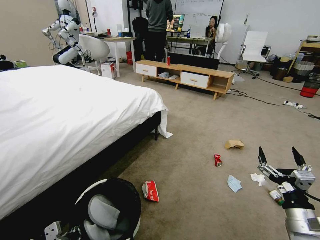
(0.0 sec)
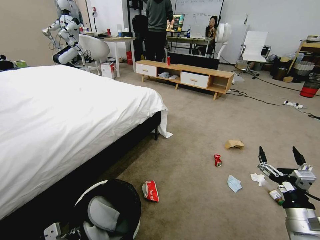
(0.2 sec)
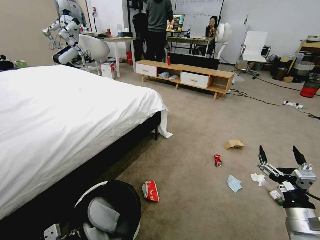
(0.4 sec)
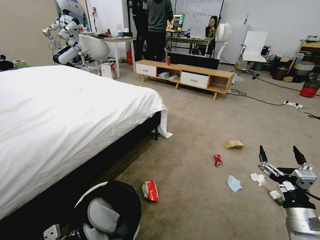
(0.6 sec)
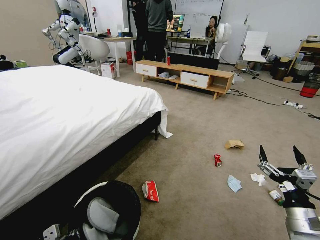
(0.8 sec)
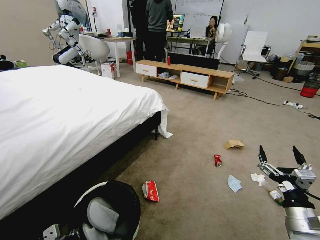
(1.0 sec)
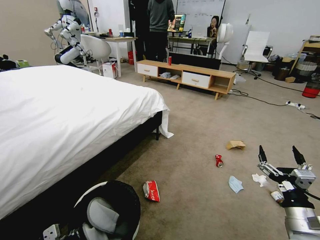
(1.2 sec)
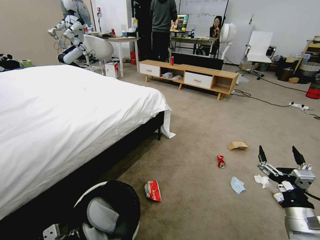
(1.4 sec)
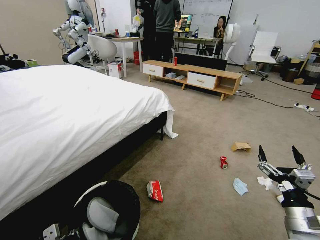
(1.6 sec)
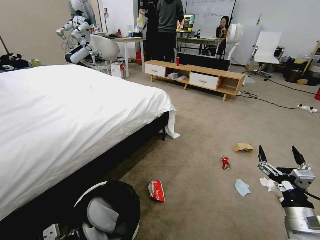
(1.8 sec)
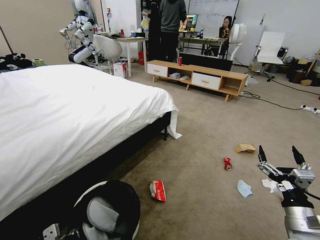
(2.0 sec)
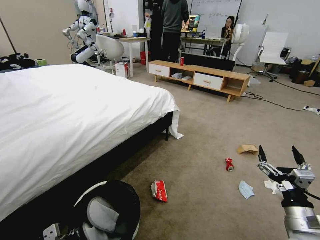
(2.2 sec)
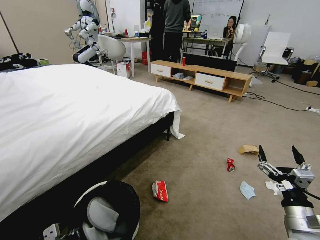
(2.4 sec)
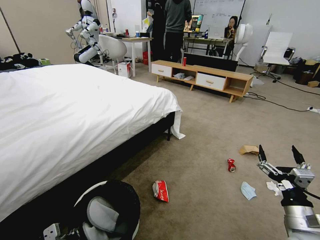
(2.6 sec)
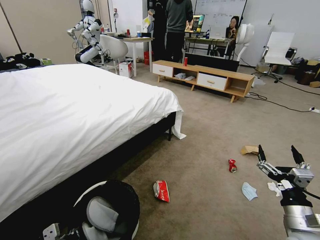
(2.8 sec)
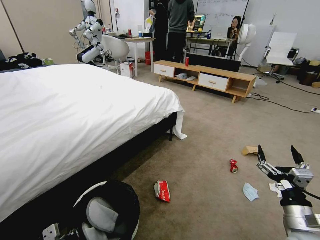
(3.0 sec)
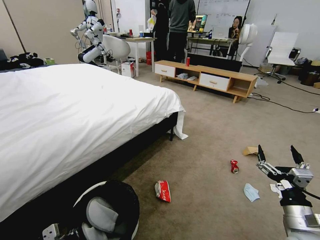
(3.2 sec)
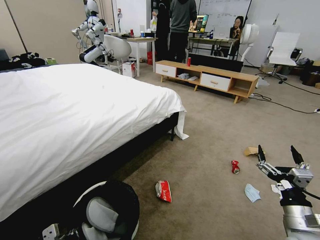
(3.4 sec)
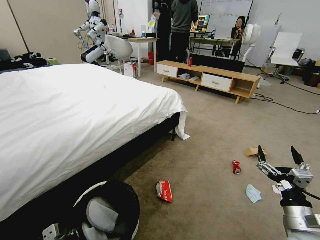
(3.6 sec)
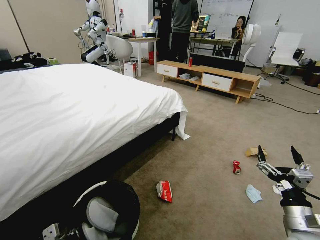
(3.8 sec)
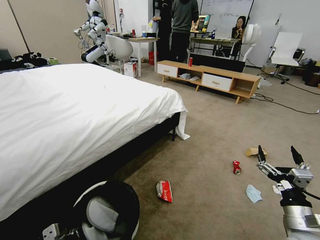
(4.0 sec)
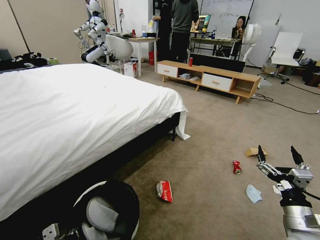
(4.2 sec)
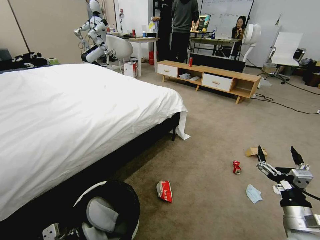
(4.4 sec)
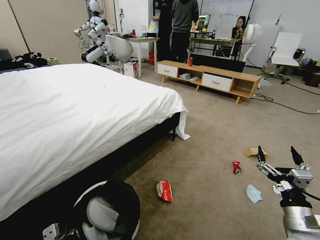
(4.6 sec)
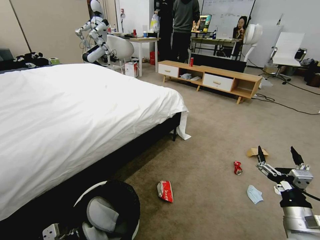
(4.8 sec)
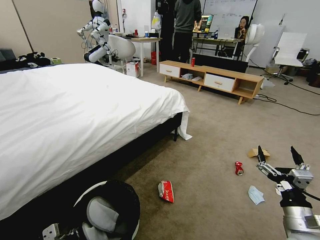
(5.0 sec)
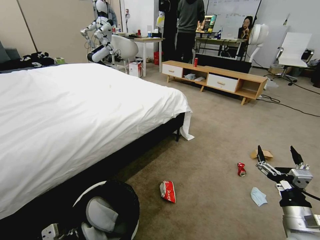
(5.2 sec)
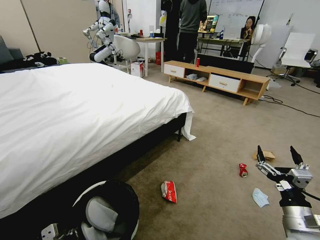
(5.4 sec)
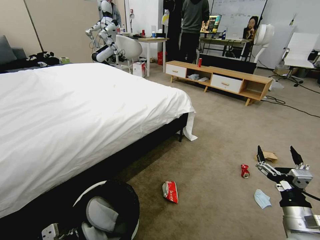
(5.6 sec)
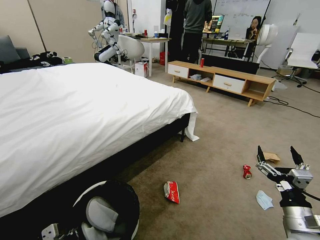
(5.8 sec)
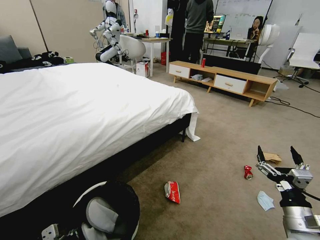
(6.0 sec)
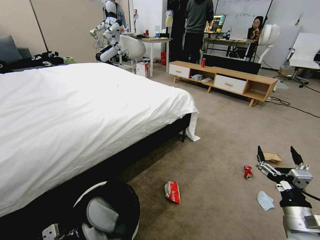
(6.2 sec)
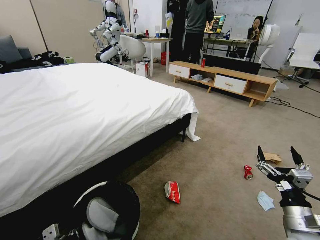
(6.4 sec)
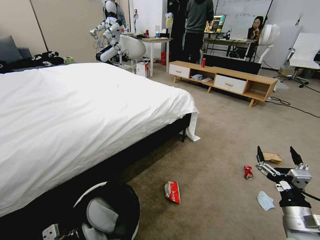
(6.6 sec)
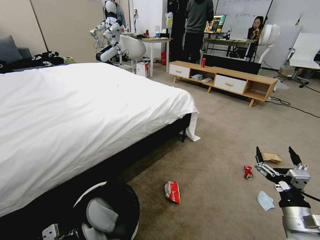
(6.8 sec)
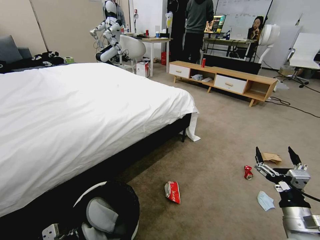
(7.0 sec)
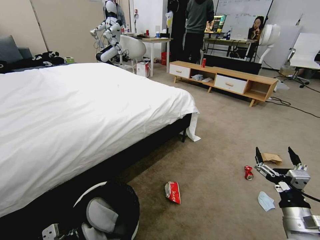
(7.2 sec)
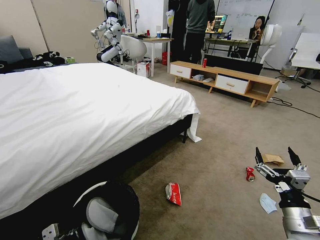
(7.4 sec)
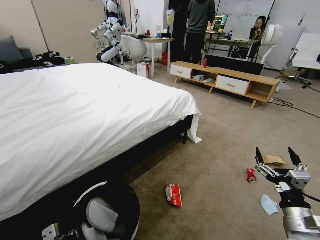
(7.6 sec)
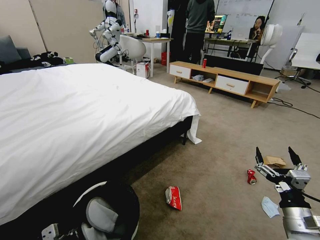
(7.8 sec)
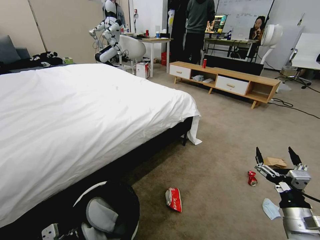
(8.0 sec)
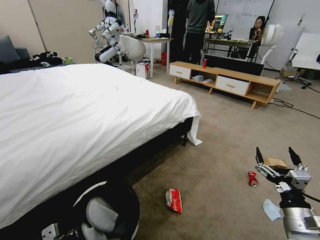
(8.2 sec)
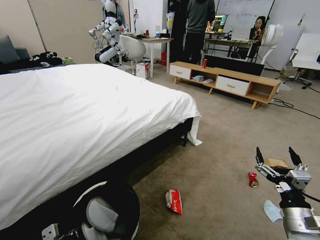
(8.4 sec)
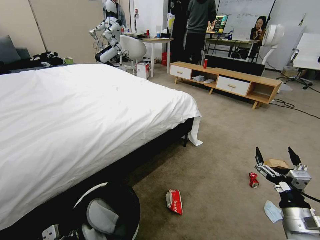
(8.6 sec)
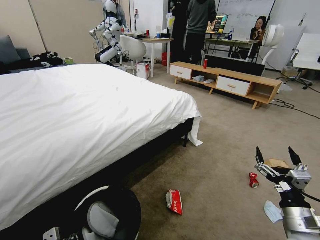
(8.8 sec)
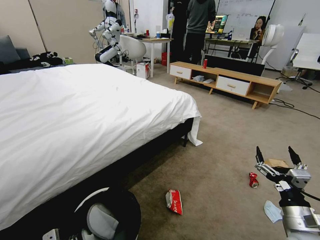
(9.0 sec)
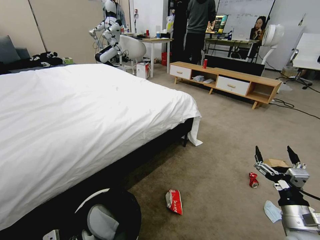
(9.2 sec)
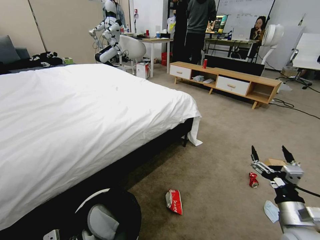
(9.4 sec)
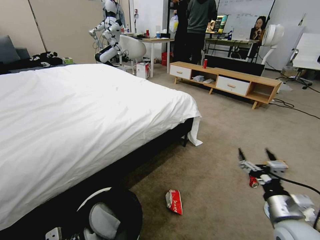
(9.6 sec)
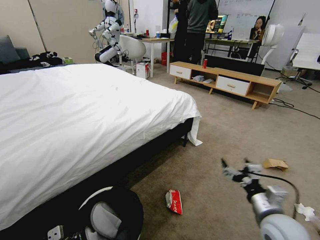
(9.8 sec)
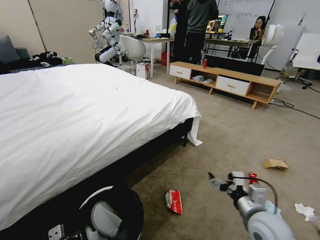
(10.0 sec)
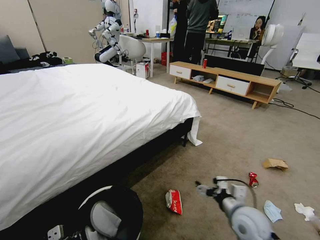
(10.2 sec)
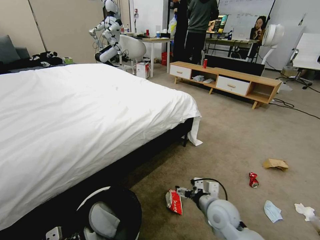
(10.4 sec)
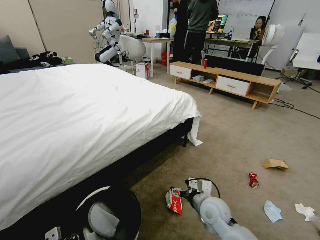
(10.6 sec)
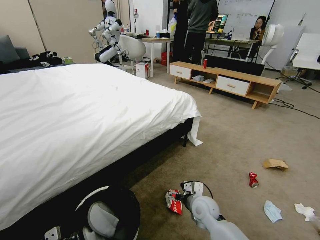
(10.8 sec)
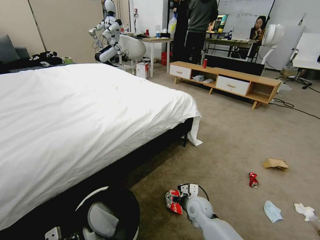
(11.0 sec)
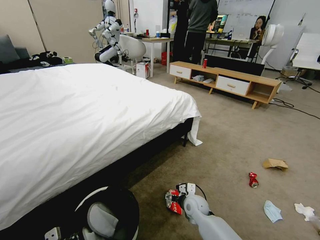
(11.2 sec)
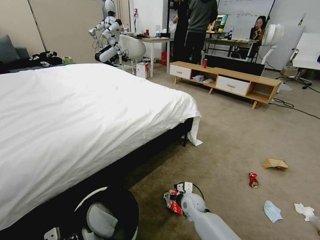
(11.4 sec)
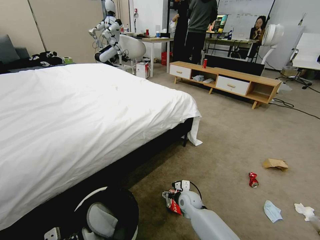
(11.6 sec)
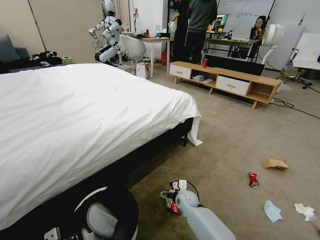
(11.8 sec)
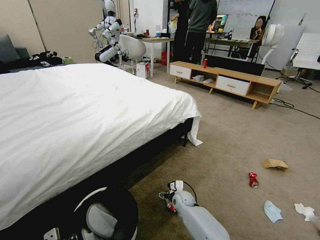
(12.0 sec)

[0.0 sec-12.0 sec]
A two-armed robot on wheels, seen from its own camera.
Task of the whole recording: Pick up the trash bin, then pick up the garbage from the floor and place it into the trash bin.
3.0 sec to 4.4 sec: Both grippers stay about where they are.
6.0 sec to 9.0 sec: Both grippers stay put.
9.0 sec to 10.4 sec: The right gripper goes about 20 cm to the left and forward.
10.4 sec to 12.0 sec: The right gripper heads downward, forward and to the left, covering about 25 cm.

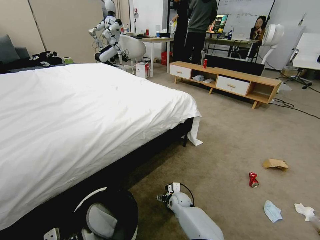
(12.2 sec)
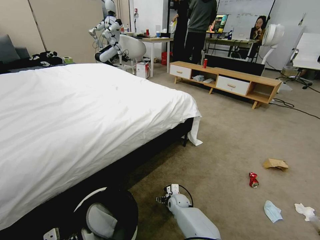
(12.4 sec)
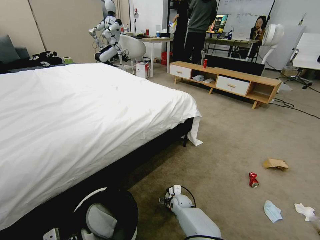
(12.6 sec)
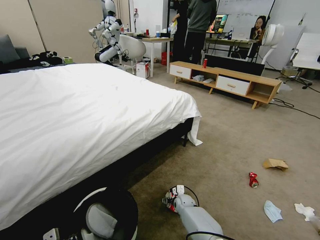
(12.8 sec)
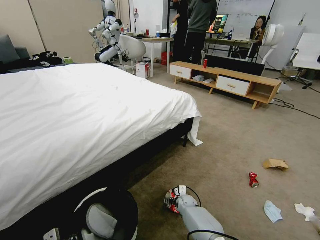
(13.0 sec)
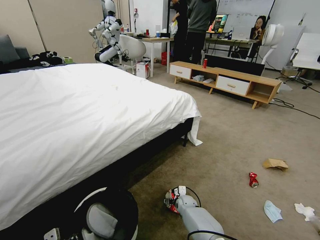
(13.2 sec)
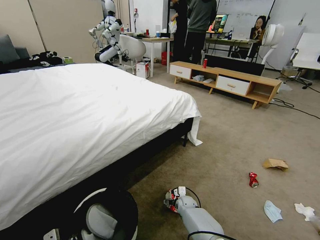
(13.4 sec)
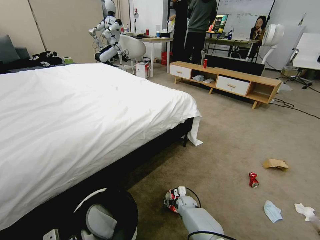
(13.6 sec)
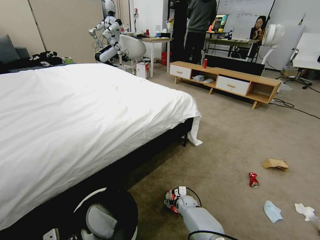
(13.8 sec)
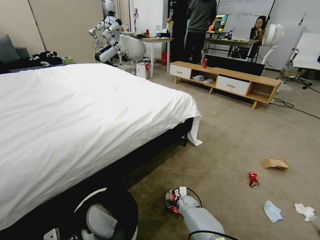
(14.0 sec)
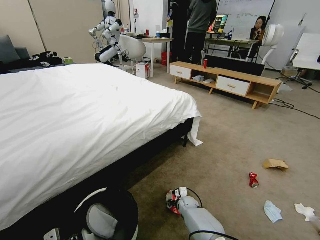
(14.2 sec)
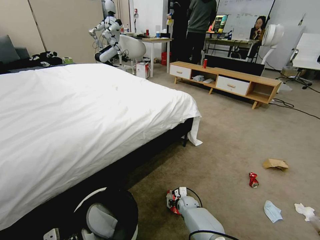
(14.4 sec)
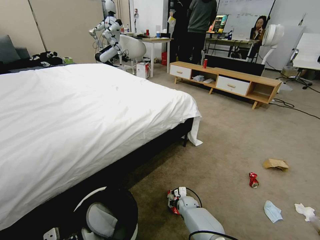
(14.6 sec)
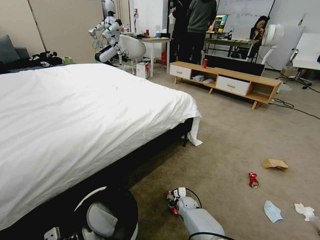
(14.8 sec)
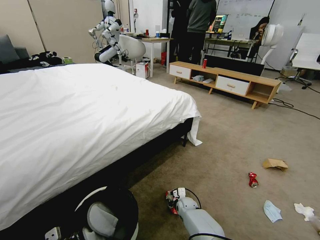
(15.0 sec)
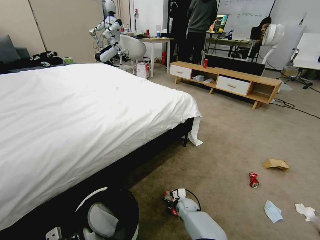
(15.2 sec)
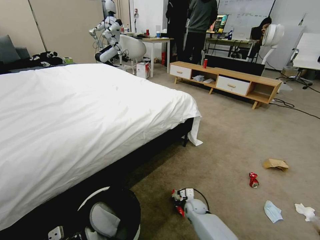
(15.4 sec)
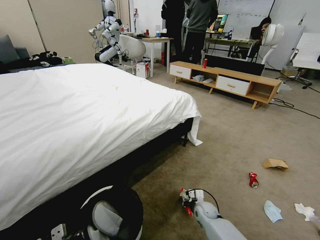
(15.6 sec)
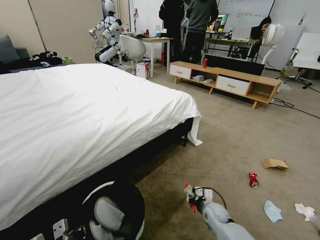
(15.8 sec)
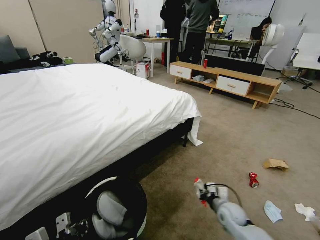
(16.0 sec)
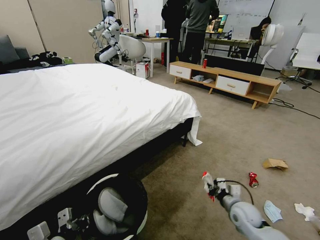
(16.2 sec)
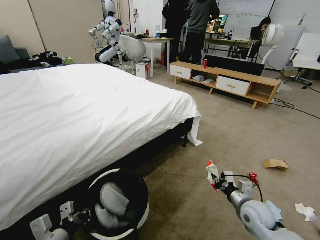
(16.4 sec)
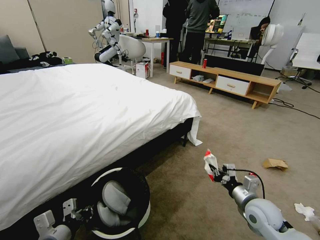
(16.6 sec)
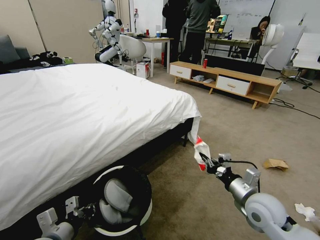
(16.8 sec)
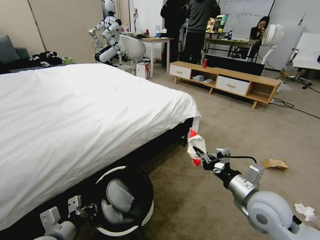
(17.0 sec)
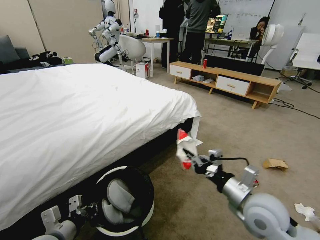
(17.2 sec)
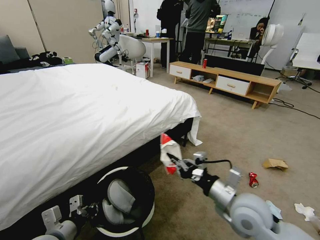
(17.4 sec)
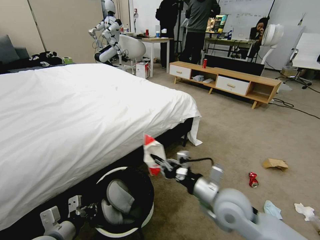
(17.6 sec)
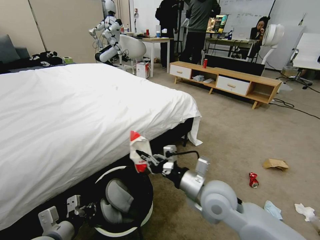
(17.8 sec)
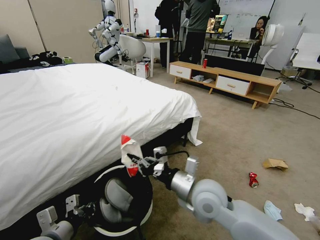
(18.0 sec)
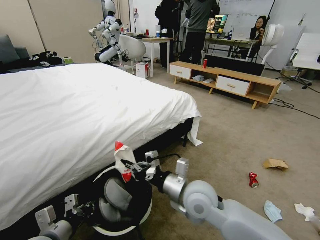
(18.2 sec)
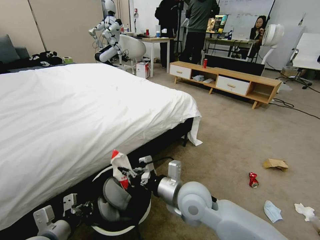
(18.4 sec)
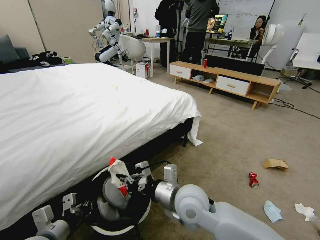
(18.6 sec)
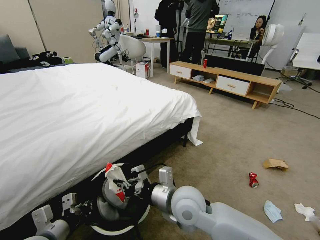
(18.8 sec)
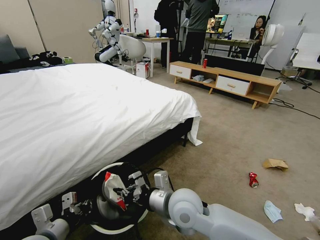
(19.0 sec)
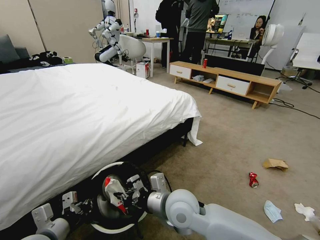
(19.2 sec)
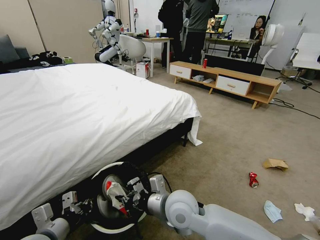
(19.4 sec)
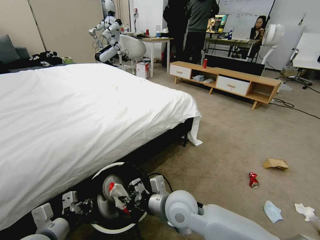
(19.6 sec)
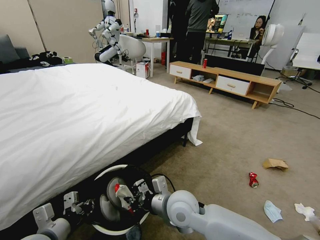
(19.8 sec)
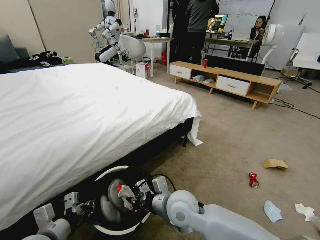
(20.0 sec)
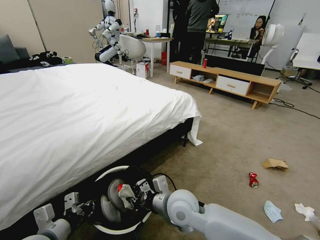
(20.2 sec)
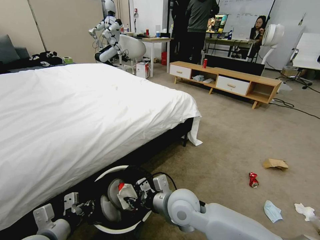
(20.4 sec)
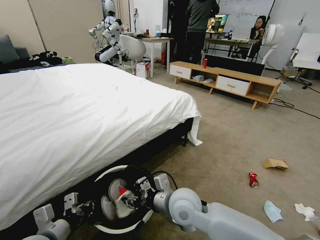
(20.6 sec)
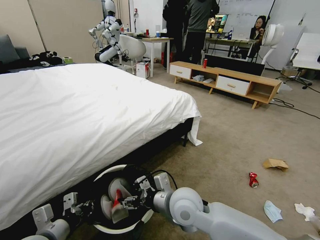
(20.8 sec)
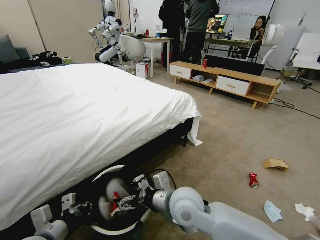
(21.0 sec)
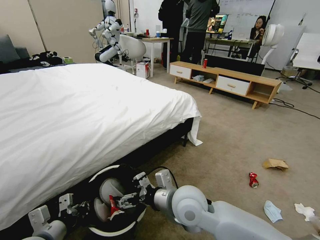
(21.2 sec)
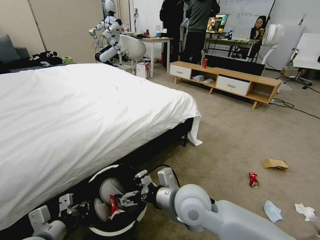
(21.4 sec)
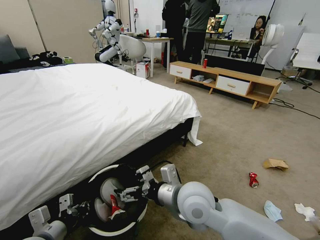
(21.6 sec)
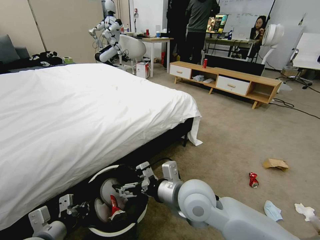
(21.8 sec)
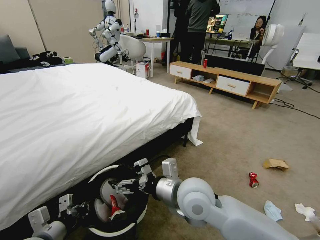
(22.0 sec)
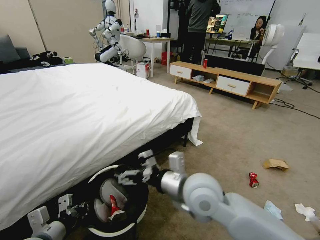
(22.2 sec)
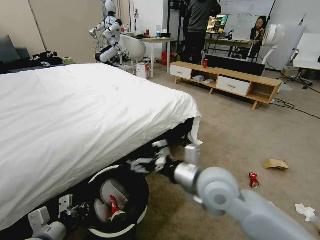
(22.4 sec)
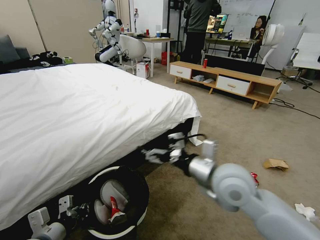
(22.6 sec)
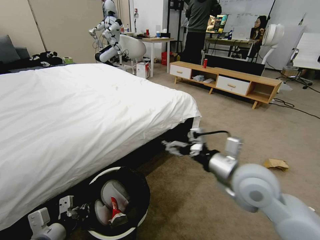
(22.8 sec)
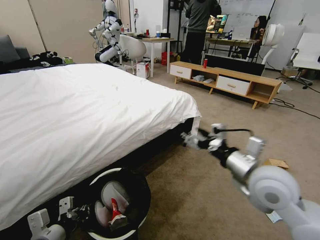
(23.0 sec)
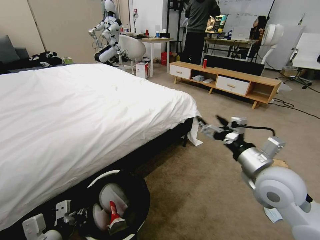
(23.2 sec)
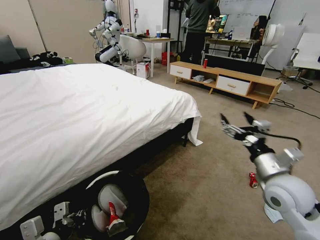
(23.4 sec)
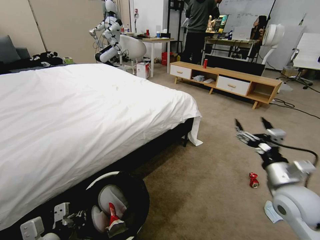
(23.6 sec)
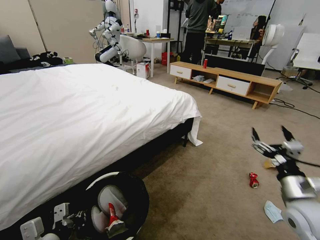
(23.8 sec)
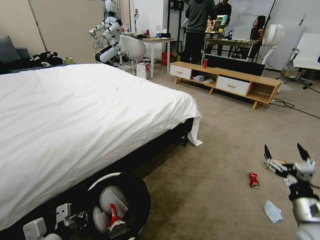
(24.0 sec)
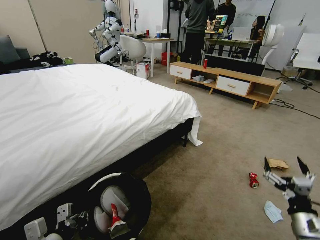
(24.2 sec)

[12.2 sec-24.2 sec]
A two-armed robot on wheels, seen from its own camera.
Task of the whole recording: Pick up the trash bin, then pick up the garbage from the floor and place it into the trash bin.
12.2 sec to 13.8 sec: The right gripper ends up roughly 5 cm from where it was.
13.8 sec to 15.2 sec: The right gripper closes its fingers.
15.2 sec to 16.6 sec: The right gripper travels upward, to the right and backward by about 35 cm. Meanwhile the left gripper is displaced forward by approximately 5 cm.
16.6 sec to 18.2 sec: The right gripper shifts approximately 25 cm to the left and upward.
18.2 sec to 19.8 sec: The right gripper shifts by roughly 5 cm.
19.8 sec to 21.2 sec: The right gripper opens; the left gripper closes.
21.2 sec to 22.6 sec: The right gripper shifts approximately 15 cm to the right and upward.
22.6 sec to 24.2 sec: The right gripper travels to the right, downward and backward by approximately 30 cm.
